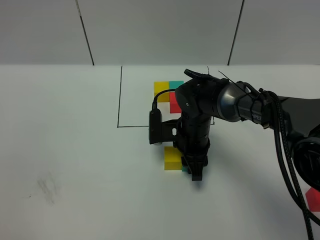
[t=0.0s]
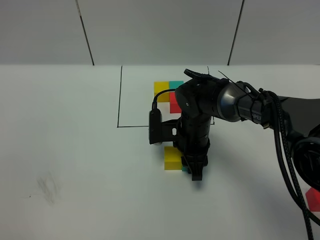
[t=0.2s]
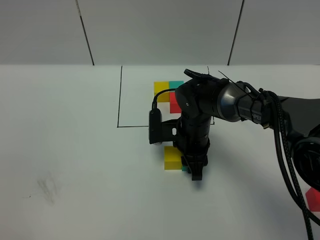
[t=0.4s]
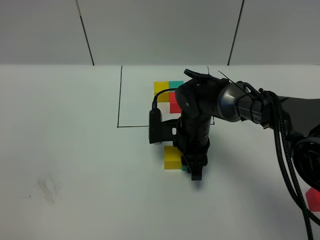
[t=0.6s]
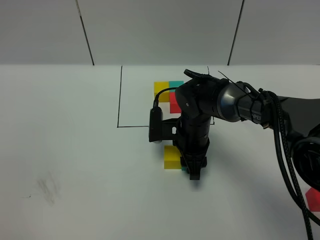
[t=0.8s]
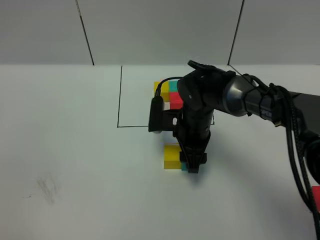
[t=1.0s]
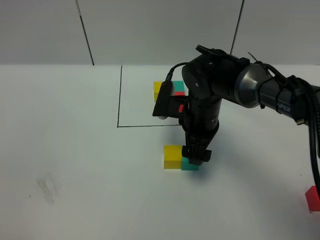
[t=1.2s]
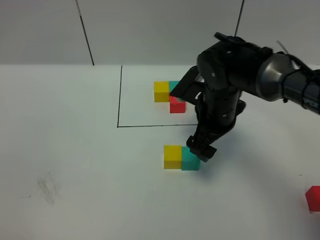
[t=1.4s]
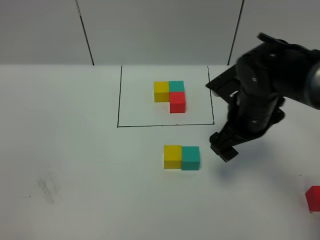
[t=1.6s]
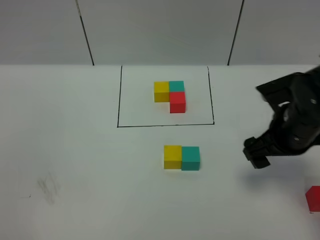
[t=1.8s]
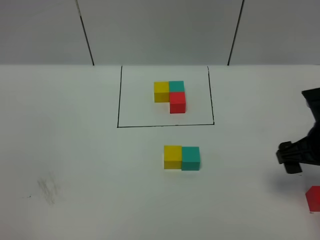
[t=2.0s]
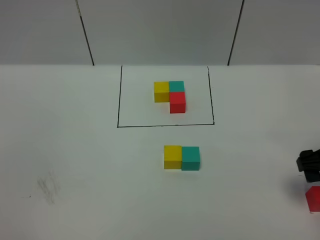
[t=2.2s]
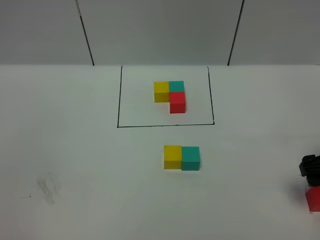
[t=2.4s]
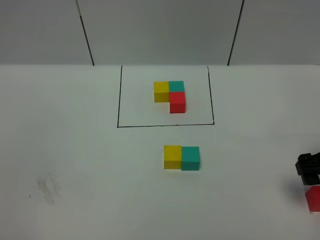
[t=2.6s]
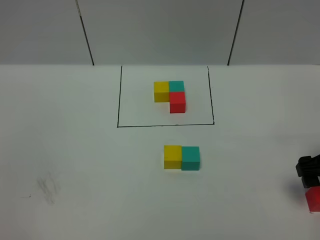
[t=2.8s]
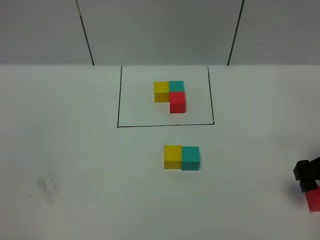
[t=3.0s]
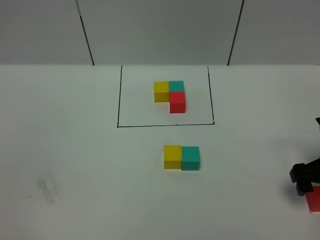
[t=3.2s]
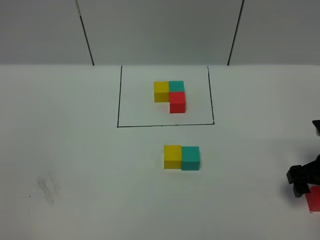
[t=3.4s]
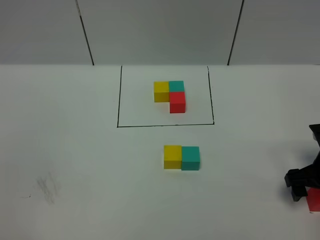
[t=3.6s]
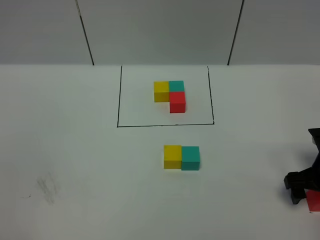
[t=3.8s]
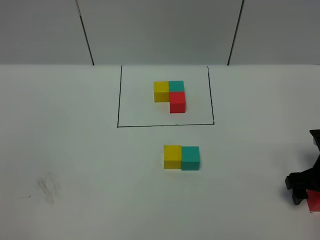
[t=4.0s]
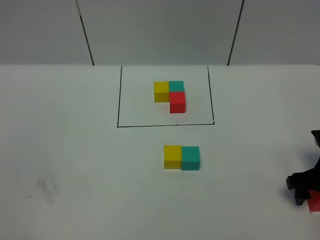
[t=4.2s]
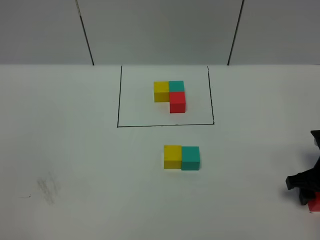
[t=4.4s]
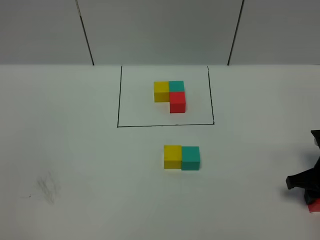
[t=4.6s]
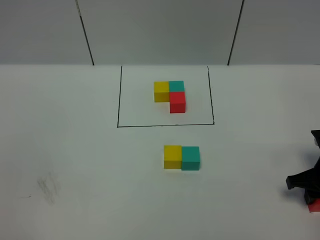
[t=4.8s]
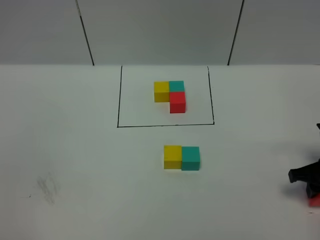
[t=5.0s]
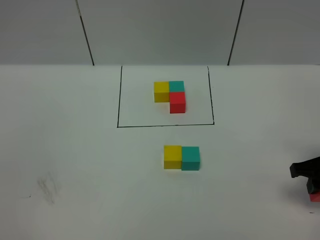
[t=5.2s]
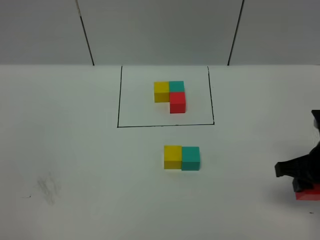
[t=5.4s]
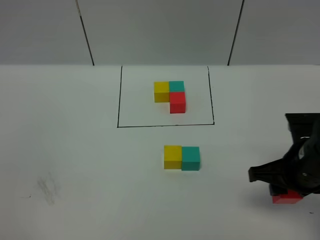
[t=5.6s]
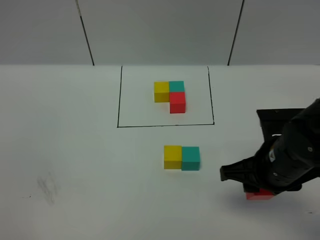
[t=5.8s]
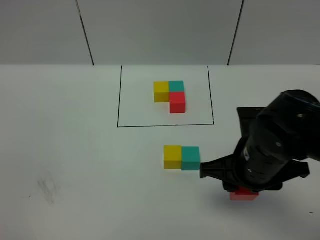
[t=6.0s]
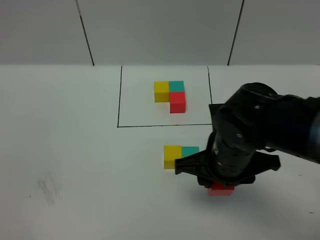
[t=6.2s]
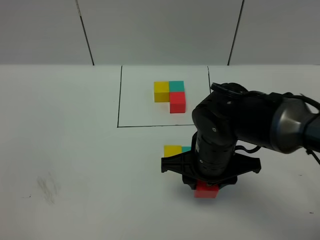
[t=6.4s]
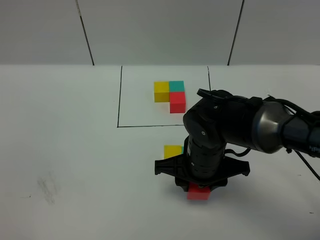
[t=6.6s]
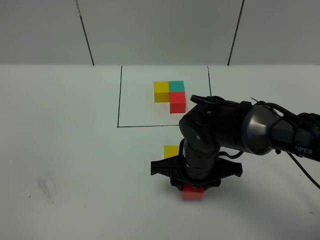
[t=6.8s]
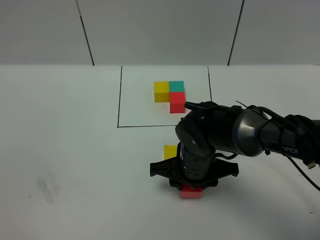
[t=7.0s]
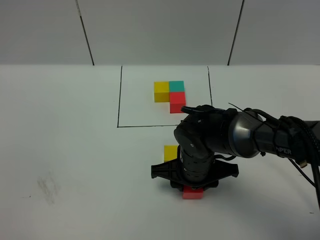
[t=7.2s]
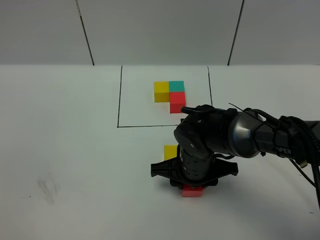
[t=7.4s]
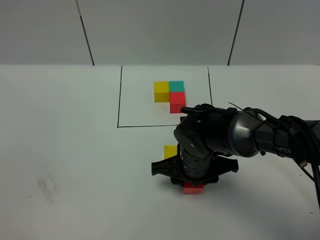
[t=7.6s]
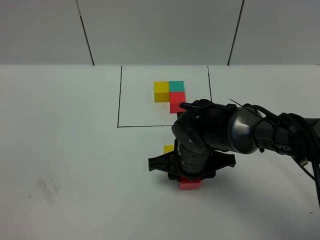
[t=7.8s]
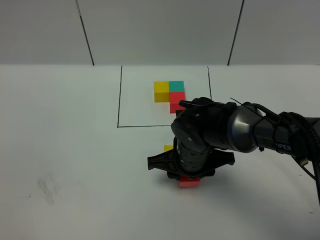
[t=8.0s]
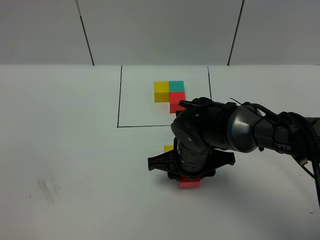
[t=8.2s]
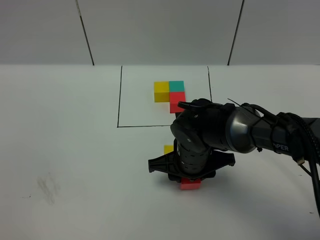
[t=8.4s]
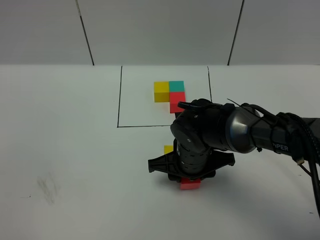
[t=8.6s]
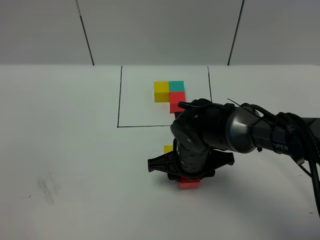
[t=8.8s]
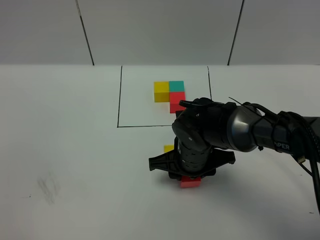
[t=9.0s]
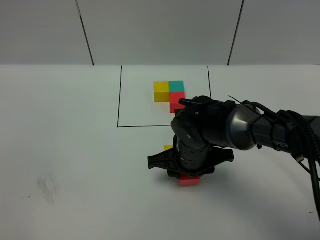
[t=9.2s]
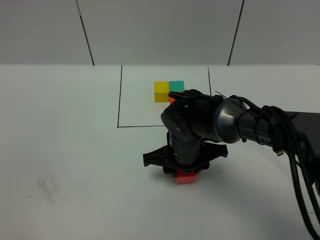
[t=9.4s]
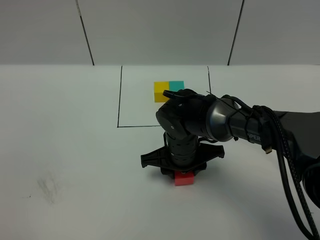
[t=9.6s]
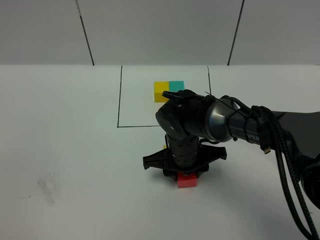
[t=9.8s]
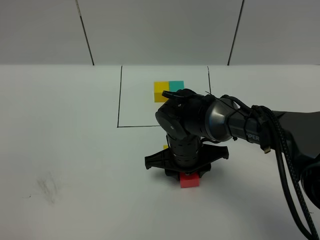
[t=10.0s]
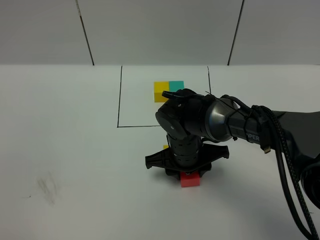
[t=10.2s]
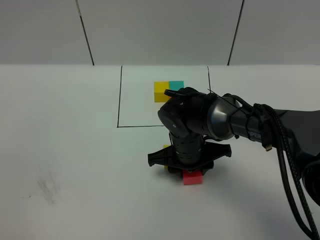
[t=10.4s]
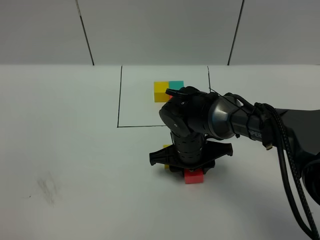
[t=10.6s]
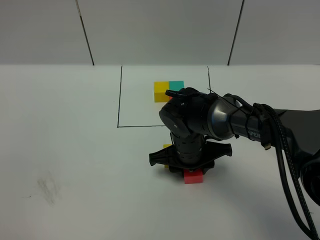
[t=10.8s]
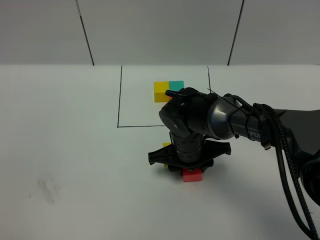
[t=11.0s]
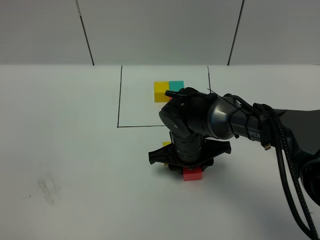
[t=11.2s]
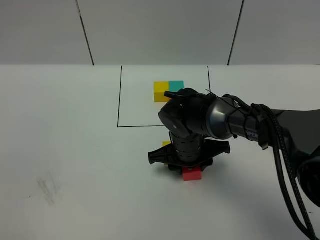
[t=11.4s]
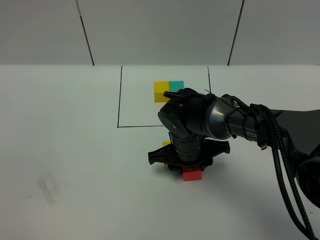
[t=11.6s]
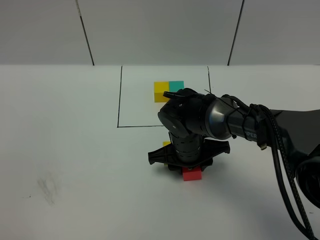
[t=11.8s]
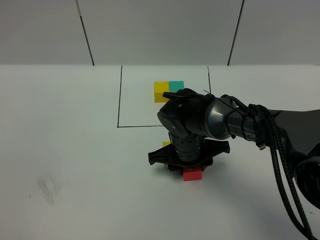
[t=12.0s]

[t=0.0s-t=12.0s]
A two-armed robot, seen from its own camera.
Task of the whole recording: According to the building block template in front, assemble the scattered blocks together.
t=0.0s to t=1.6s: The right gripper heads upward and to the right, covering some 15 cm, and opens its fingers.
t=1.6s to t=3.0s: The right gripper goes some 15 cm to the right.
t=3.0s to t=4.4s: The right gripper goes roughly 5 cm downward, and closes its fingers.
t=4.4s to t=6.0s: The right gripper heads to the left and upward, covering about 20 cm.
t=6.0s to t=7.6s: The right gripper travels downward, to the left and forward by roughly 15 cm.
t=7.6s to t=9.0s: Both grippers stay about where they are.
t=9.0s to t=10.4s: There are only small adjustments of the grippers.
t=10.4s to t=12.0s: The two grippers keep their place.

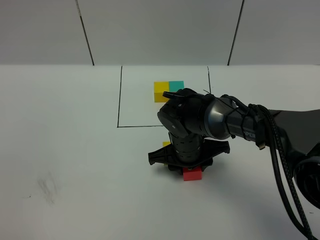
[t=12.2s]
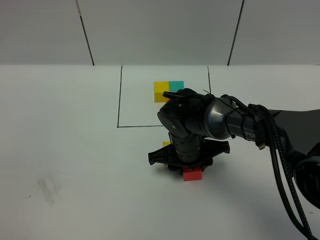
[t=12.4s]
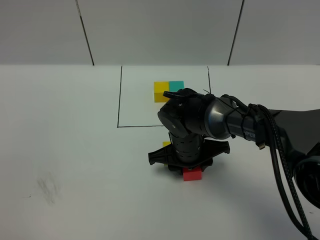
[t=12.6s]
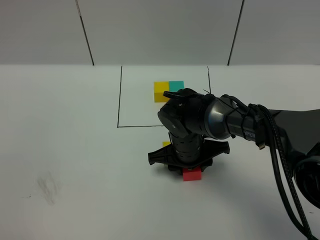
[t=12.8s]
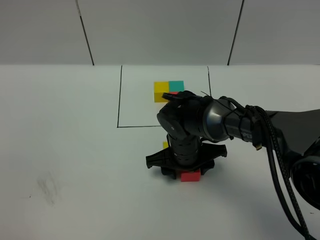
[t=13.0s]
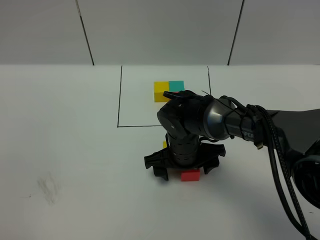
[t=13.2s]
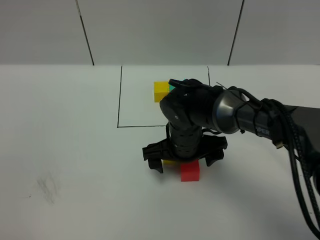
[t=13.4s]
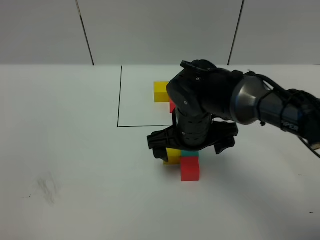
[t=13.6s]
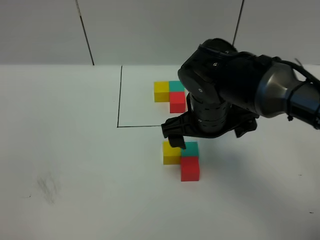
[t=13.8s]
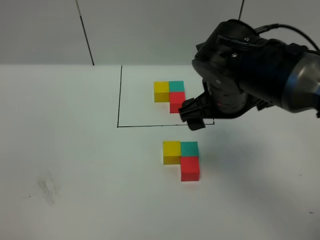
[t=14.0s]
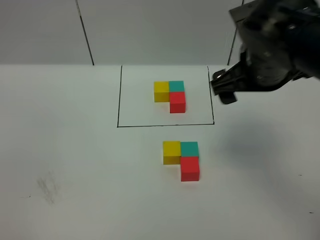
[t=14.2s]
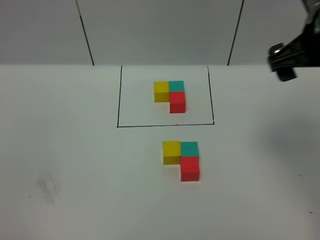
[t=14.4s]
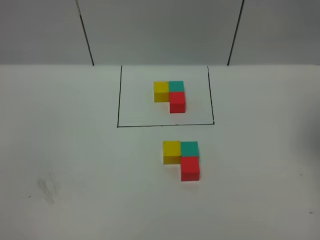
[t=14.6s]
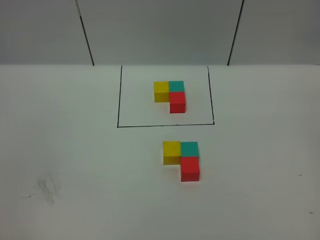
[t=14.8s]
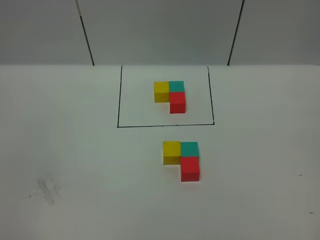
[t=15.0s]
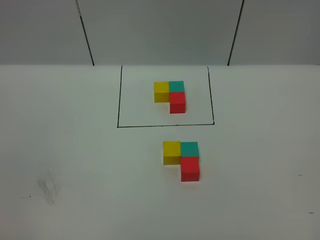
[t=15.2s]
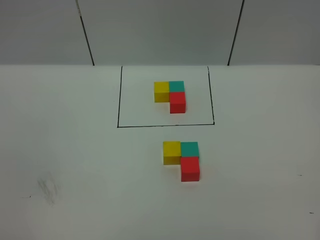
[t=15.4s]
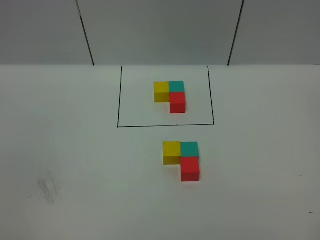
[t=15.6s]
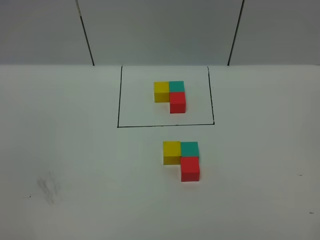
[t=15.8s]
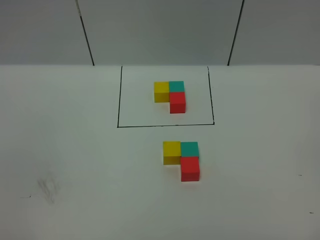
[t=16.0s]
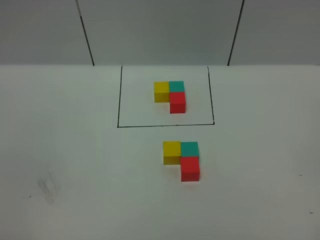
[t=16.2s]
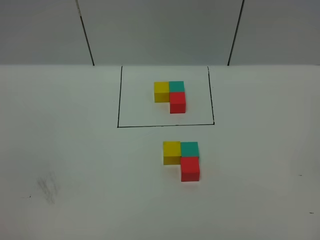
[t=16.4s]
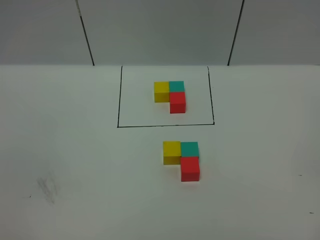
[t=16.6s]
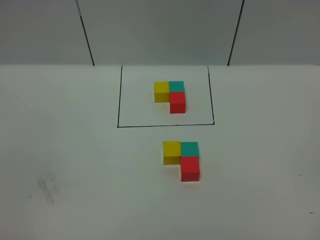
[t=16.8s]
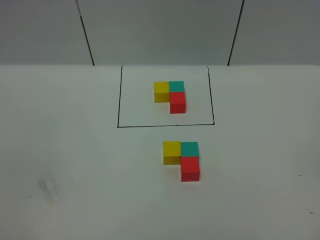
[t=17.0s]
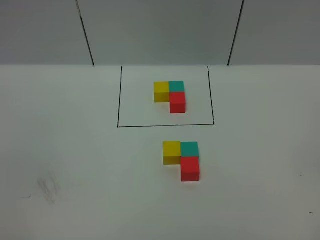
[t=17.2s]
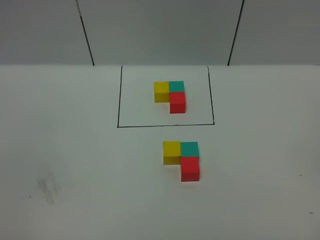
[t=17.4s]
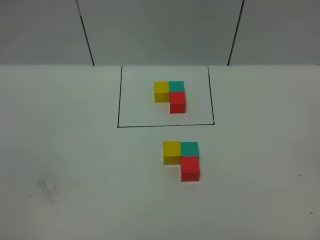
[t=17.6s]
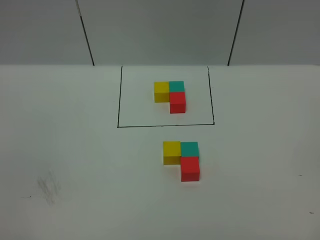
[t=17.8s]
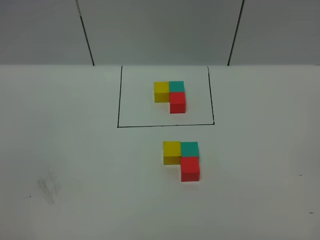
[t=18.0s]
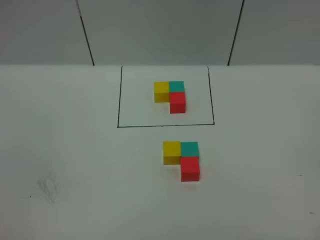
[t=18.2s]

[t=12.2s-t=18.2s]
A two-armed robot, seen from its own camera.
Task of the whole recording: According to the building block template in front, assemble the scattered blocks together.
t=12.2s to t=13.8s: The right gripper travels upward by approximately 15 cm, and opens.
t=13.8s to t=15.2s: The right gripper goes some 40 cm to the right, upward and backward.
